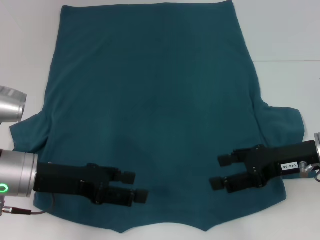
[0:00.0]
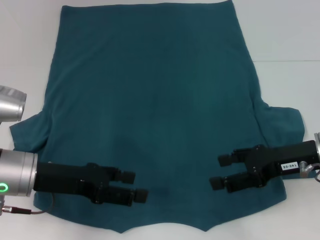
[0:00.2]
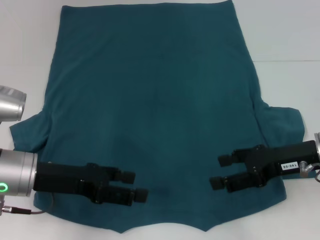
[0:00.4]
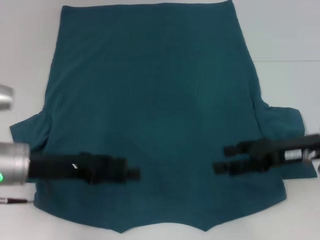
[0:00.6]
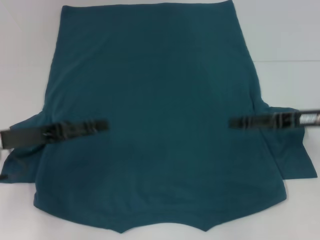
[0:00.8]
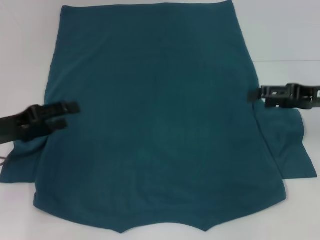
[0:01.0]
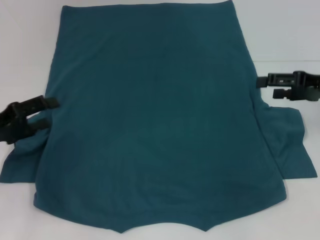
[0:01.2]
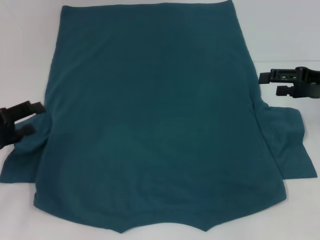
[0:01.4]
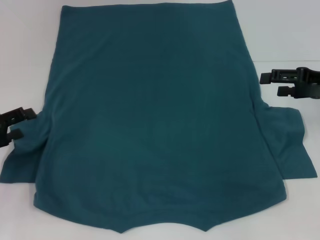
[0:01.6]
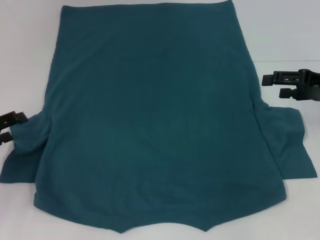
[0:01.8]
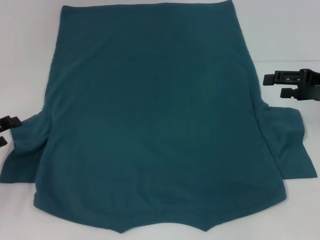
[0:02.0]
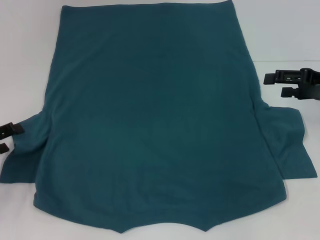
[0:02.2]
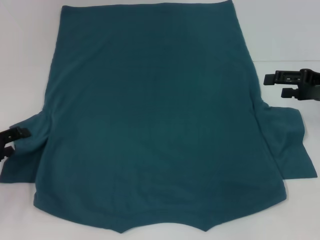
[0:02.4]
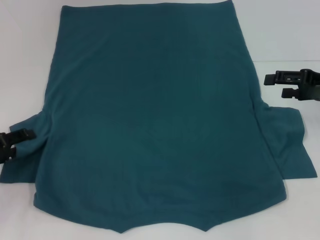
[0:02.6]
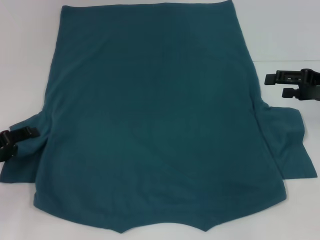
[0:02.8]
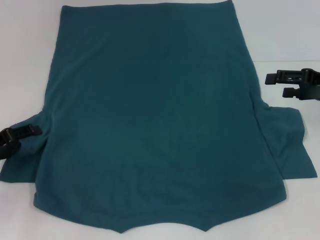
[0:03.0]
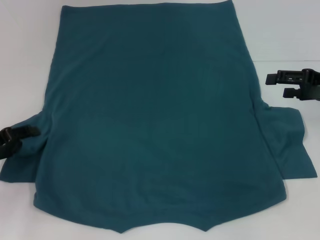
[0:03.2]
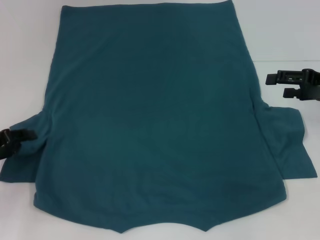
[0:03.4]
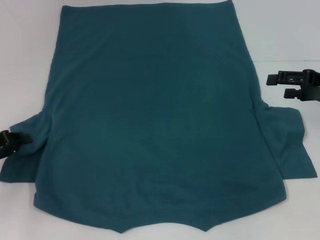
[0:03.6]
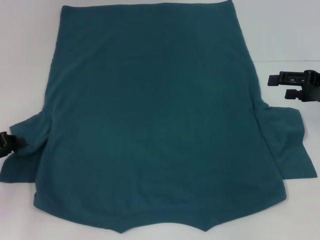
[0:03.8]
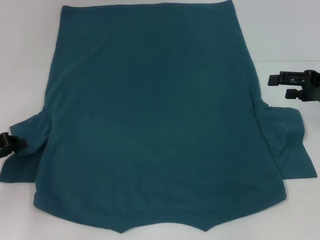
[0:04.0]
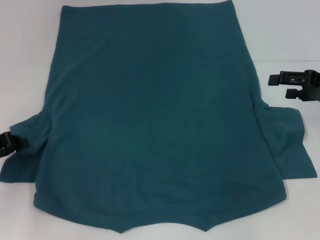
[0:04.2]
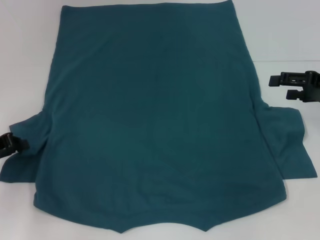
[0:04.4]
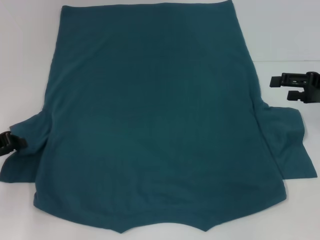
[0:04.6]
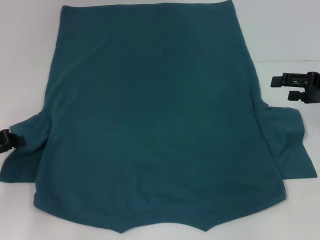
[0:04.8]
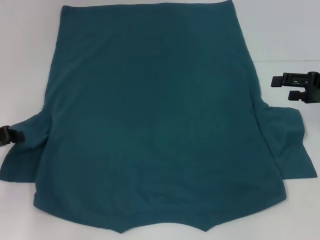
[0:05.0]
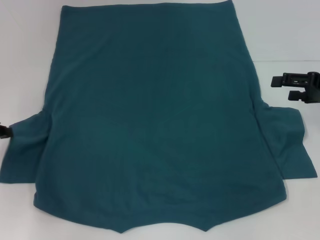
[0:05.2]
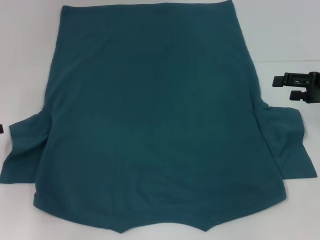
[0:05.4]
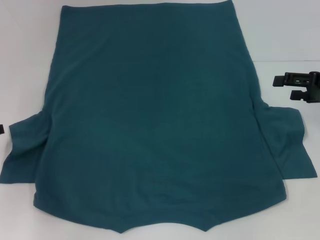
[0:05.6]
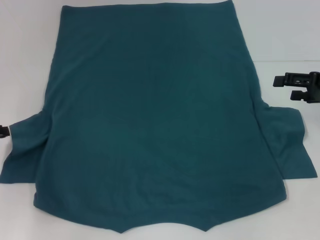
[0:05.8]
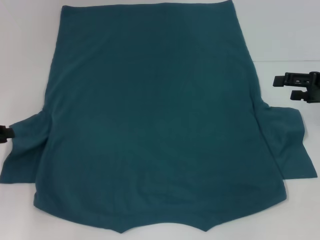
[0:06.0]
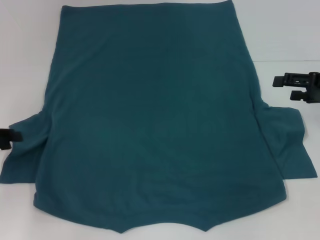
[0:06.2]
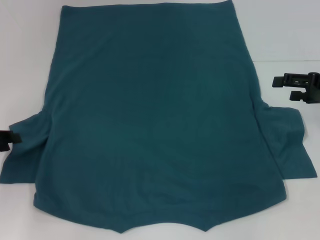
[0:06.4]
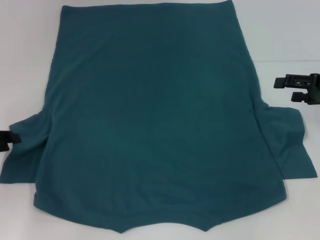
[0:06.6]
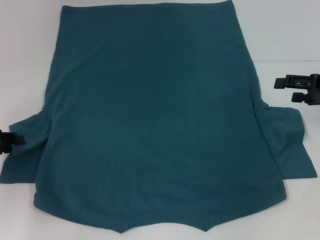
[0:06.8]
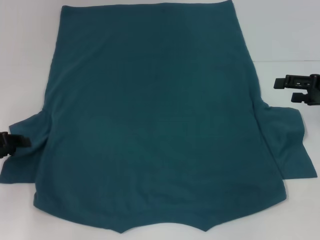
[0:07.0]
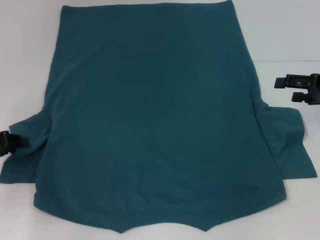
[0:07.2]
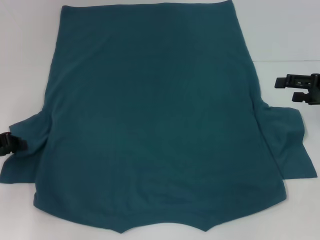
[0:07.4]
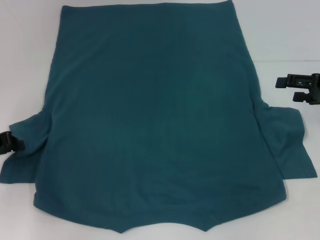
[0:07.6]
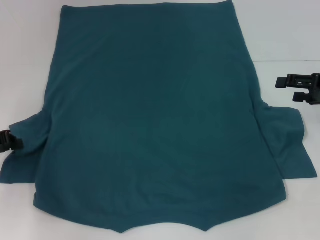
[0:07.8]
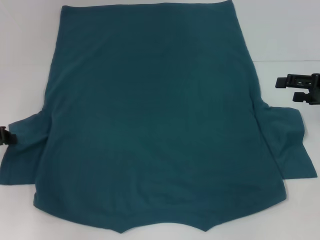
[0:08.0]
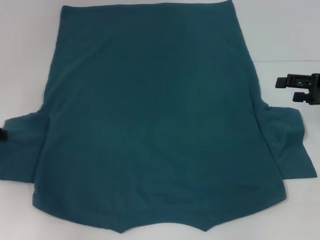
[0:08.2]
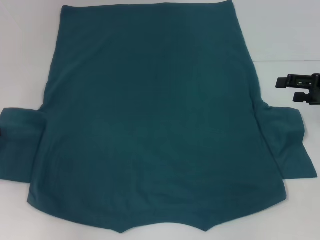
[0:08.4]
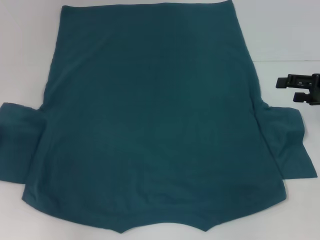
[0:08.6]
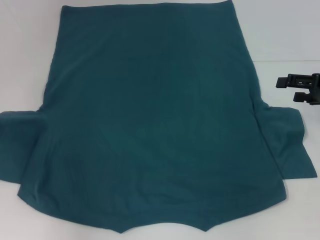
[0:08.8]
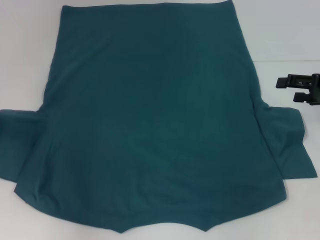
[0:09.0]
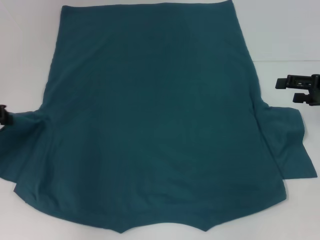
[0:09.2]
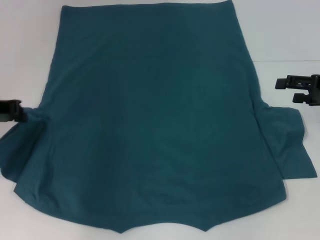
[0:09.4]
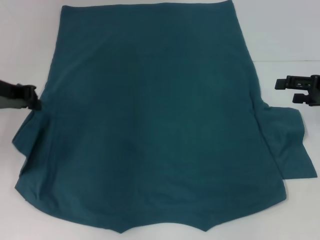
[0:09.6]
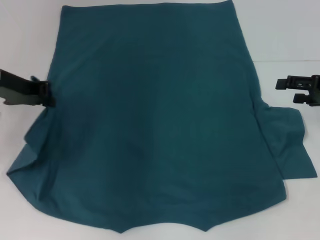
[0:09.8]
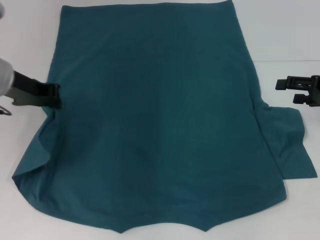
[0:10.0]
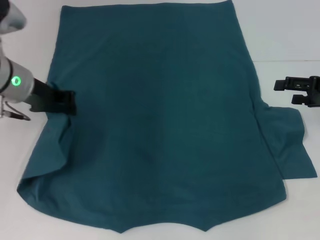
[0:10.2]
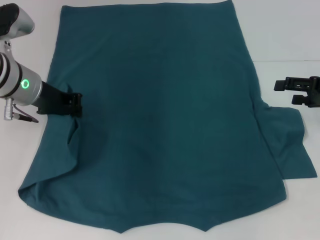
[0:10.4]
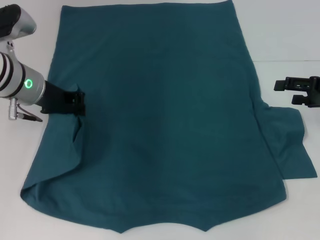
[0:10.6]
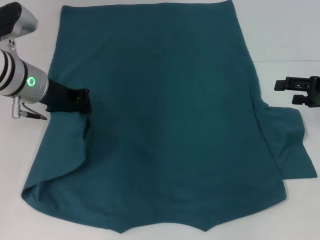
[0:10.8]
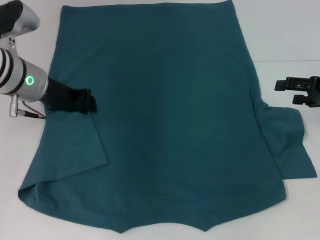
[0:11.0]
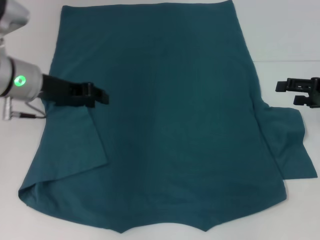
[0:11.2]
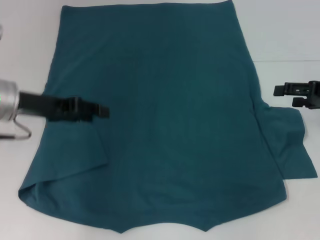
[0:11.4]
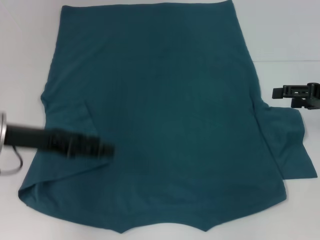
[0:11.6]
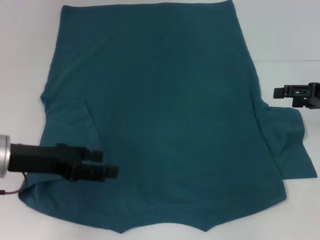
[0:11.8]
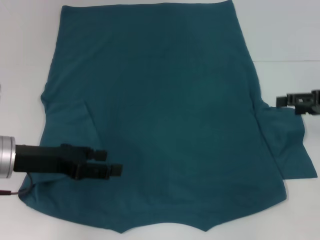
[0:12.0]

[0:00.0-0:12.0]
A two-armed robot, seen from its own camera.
Step, 0:00.0 to 0:11.0: Fold the bottom left sleeve with your left hand.
0:00.0 to 0:01.6: The right gripper moves to the right and forward, some 10 cm. The left gripper moves to the left, about 15 cm.
0:01.6 to 0:03.0: There are only small adjustments of the grippers.
0:03.0 to 0:04.4: The left gripper closes up.
0:04.4 to 0:07.6: The grippers stay close to where they were, moving slightly.
0:07.6 to 0:09.0: The left gripper shifts by about 5 cm.
0:09.0 to 0:10.4: The left gripper travels to the right by roughly 15 cm.
0:10.4 to 0:12.0: The left gripper shifts some 10 cm backward, and opens.

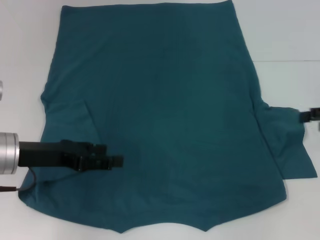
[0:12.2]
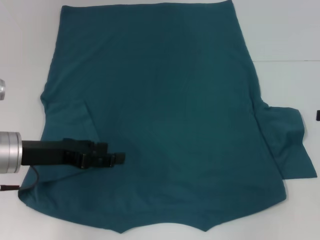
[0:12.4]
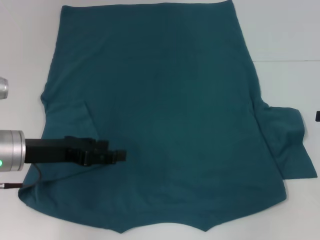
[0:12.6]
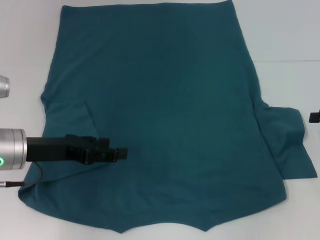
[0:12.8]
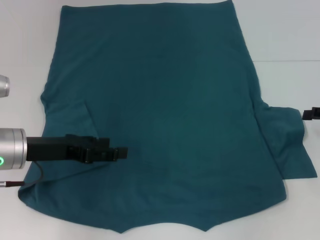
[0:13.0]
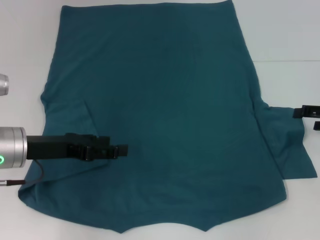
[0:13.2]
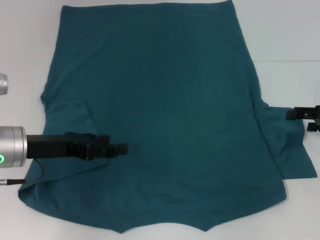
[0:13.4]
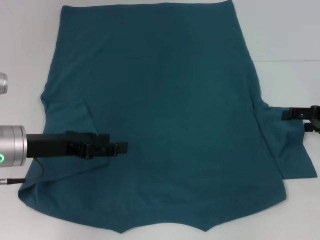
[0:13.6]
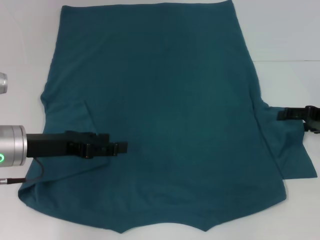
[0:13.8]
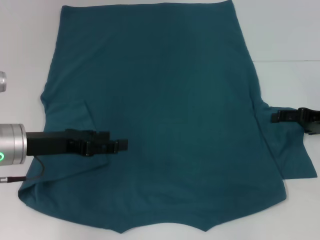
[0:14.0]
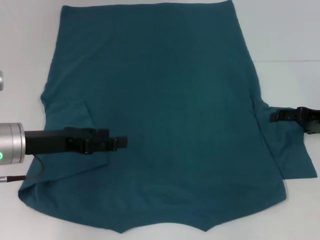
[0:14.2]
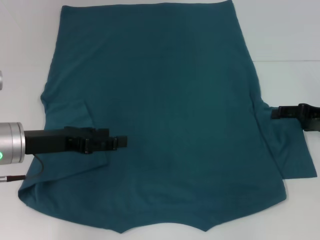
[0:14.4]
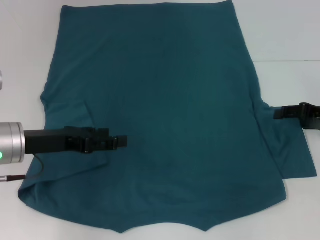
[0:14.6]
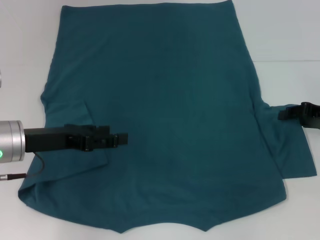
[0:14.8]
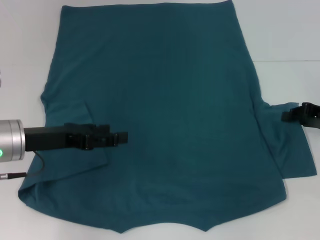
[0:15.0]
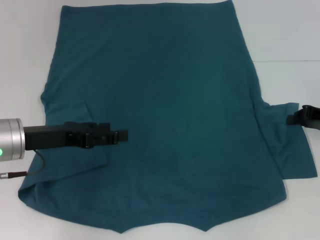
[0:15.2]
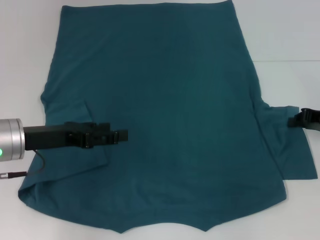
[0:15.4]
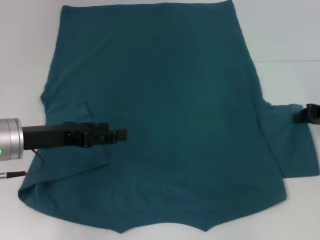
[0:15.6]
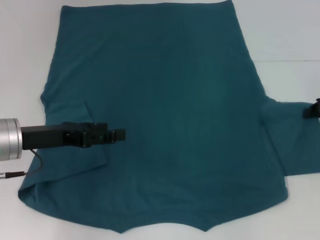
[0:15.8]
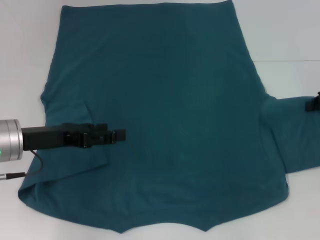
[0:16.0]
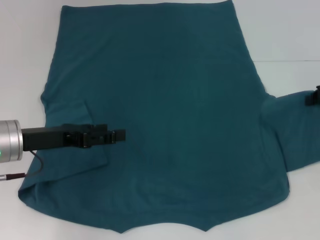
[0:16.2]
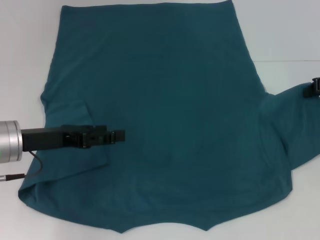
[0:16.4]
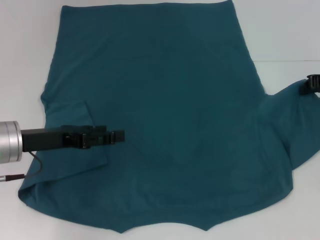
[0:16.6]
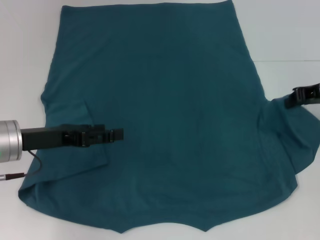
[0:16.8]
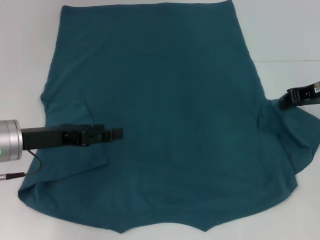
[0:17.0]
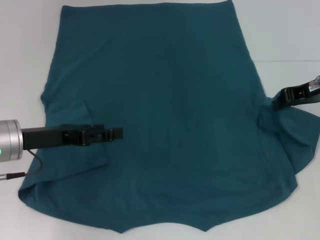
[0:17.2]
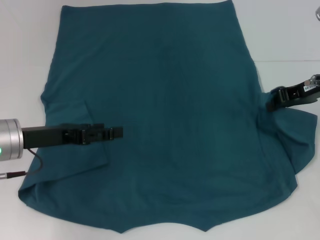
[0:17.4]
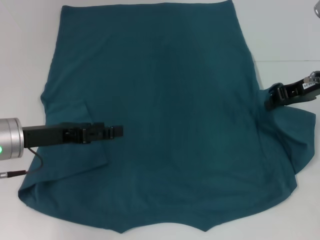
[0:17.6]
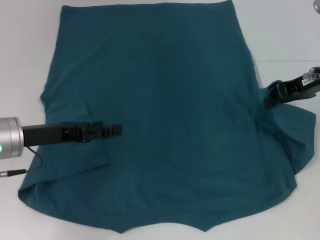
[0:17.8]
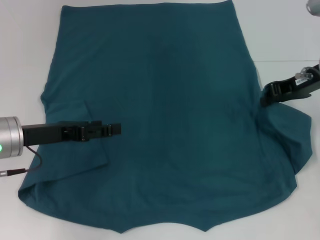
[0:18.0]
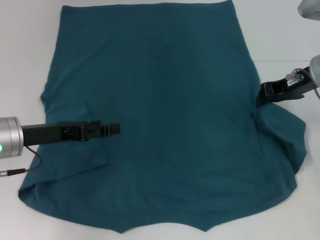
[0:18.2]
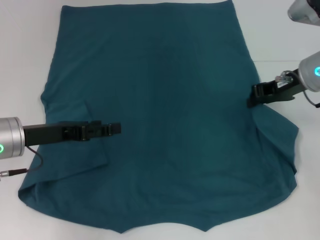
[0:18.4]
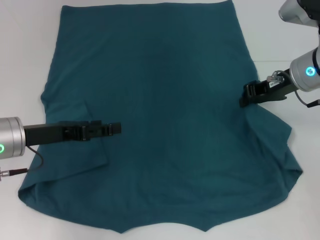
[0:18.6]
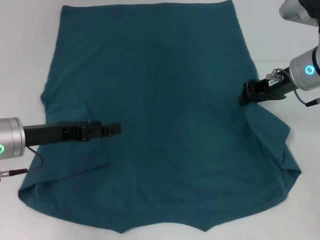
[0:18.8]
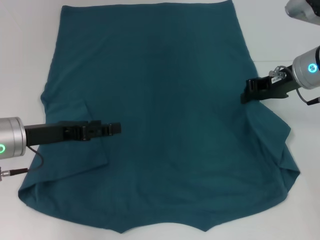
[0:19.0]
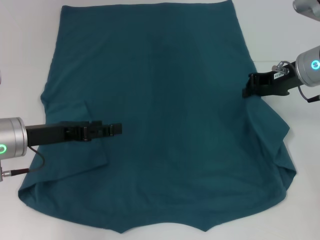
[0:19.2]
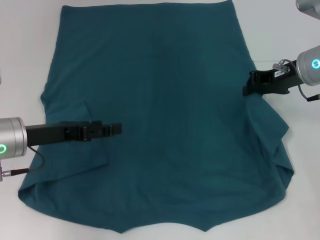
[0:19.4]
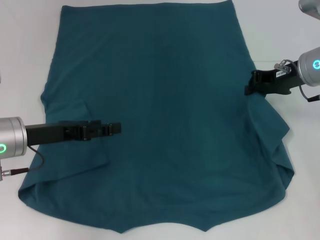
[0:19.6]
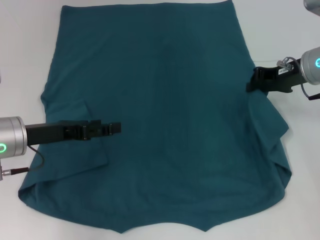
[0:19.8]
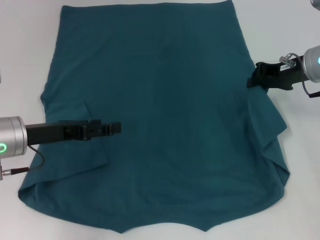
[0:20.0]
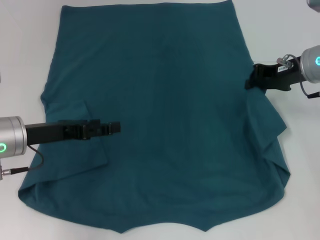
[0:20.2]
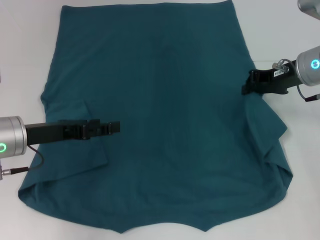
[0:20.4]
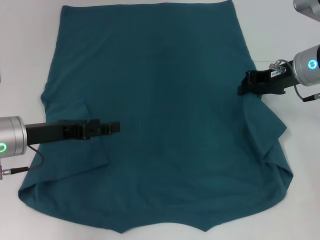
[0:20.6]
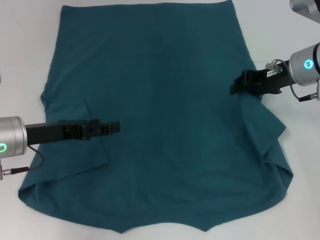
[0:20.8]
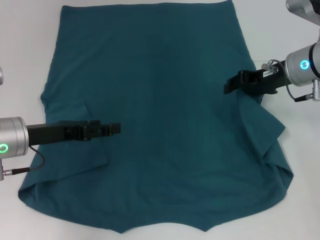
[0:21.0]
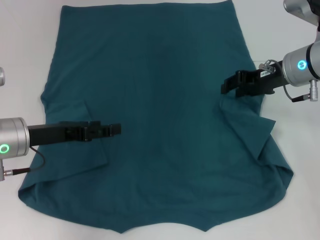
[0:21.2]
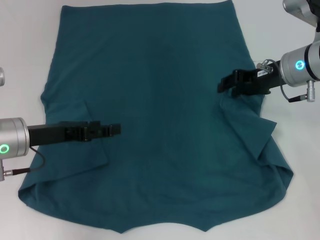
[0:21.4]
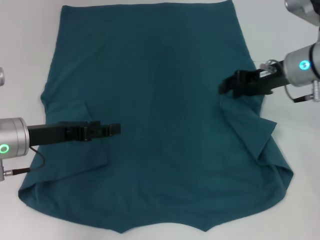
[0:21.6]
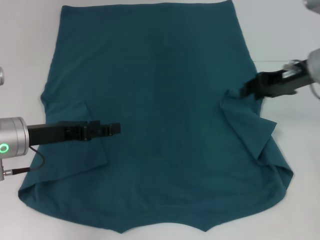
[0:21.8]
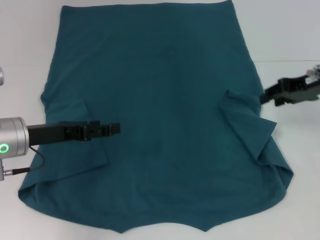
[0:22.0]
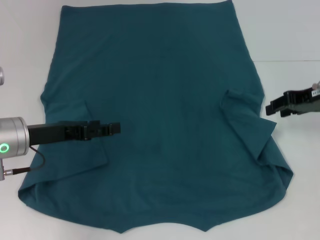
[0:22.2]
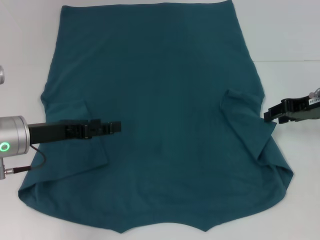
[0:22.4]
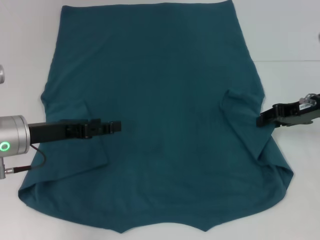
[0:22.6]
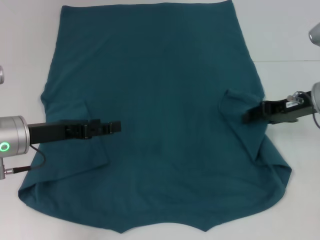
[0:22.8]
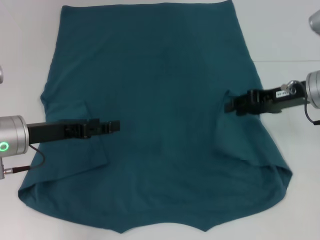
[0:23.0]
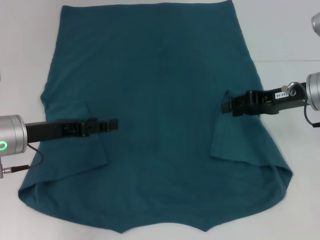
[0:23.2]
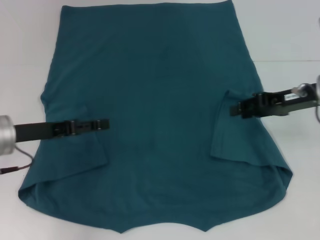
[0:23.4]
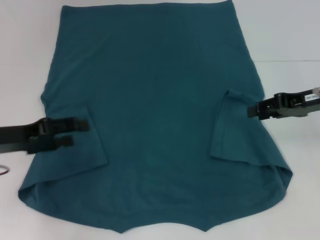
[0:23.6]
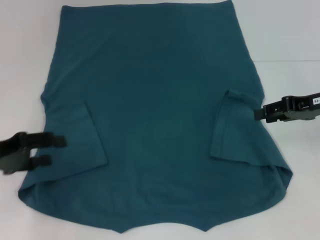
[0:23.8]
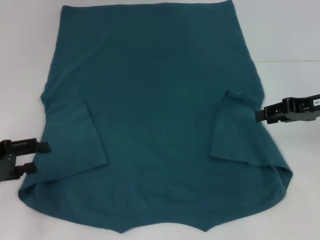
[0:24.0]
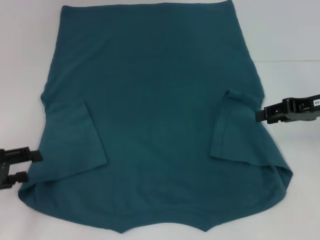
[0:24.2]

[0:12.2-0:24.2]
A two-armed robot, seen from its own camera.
Step, 0:12.2 to 0:23.0: Fold the bottom right sleeve to the right.
0:12.2 to 0:13.8: The right gripper travels downward by about 5 cm.
0:13.8 to 0:15.2: The right gripper closes its fingers.
0:15.2 to 0:16.6: The right gripper heads upward, covering roughly 5 cm.
0:16.6 to 0:18.2: The right gripper heads to the left, covering some 10 cm.
0:18.2 to 0:19.8: The grippers make only small movements.
0:19.8 to 0:21.2: The right gripper opens its fingers.
0:21.2 to 0:22.6: The right gripper shifts approximately 5 cm to the right.
0:22.6 to 0:24.2: The left gripper is displaced to the left and backward by some 10 cm.
